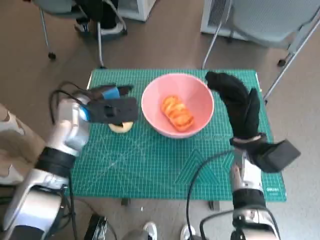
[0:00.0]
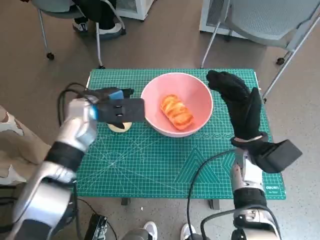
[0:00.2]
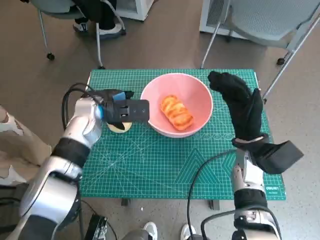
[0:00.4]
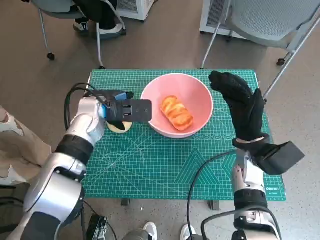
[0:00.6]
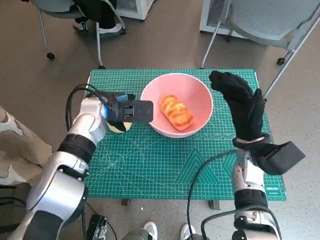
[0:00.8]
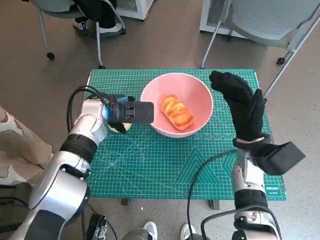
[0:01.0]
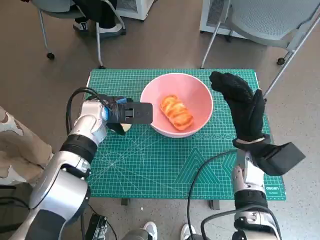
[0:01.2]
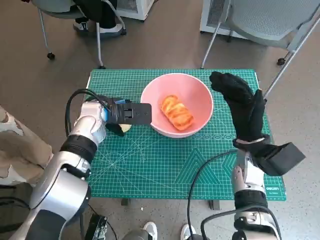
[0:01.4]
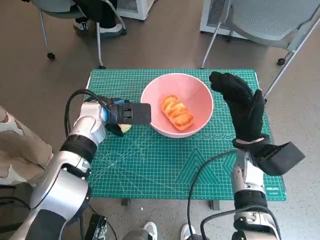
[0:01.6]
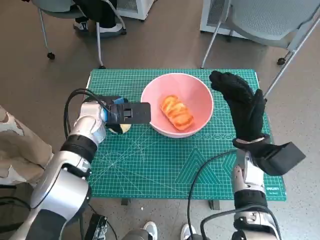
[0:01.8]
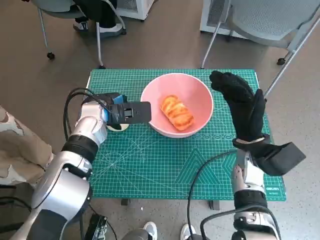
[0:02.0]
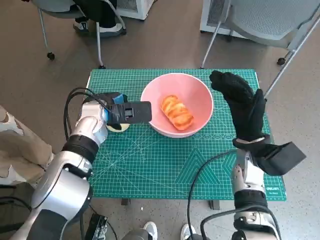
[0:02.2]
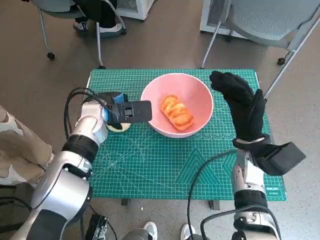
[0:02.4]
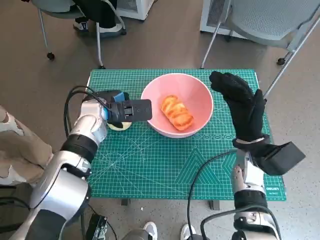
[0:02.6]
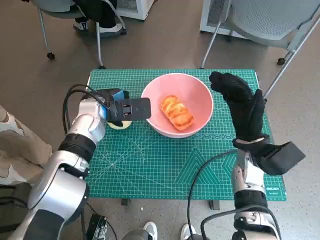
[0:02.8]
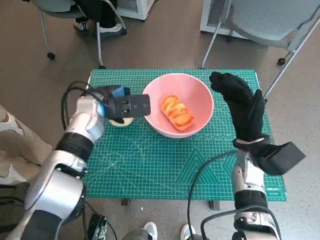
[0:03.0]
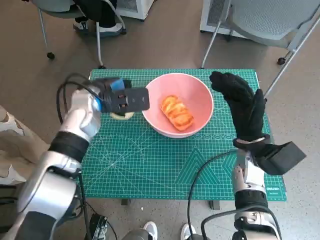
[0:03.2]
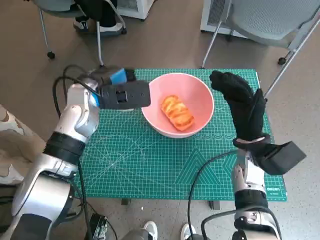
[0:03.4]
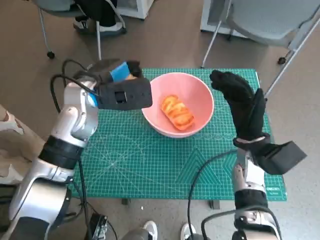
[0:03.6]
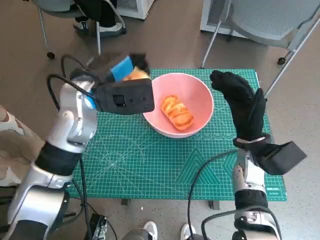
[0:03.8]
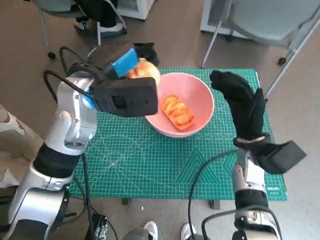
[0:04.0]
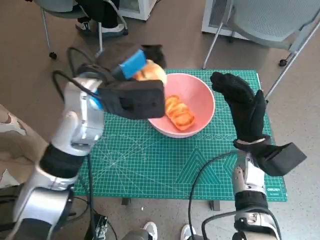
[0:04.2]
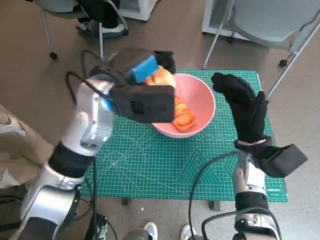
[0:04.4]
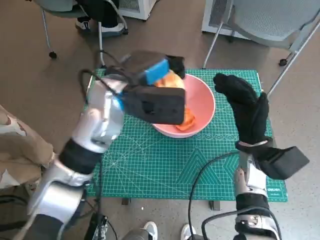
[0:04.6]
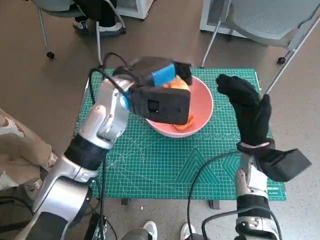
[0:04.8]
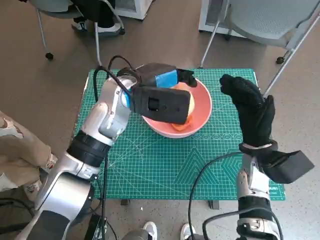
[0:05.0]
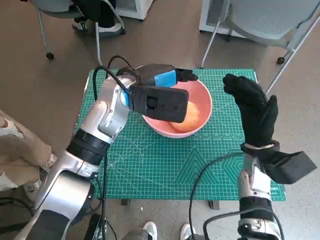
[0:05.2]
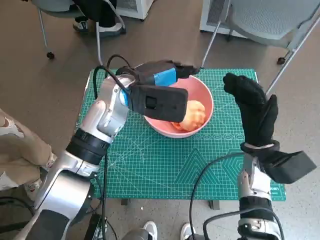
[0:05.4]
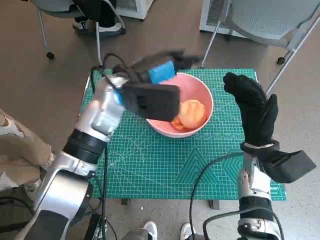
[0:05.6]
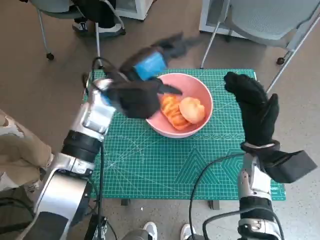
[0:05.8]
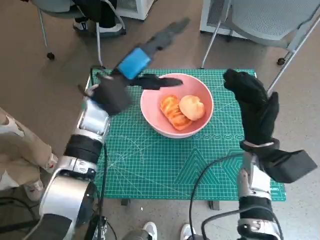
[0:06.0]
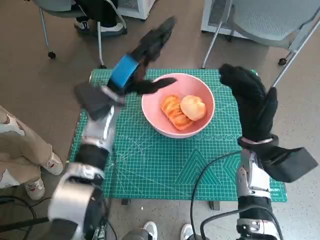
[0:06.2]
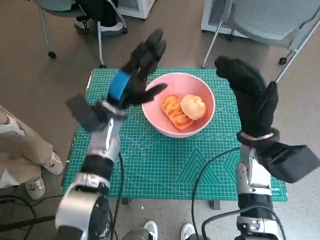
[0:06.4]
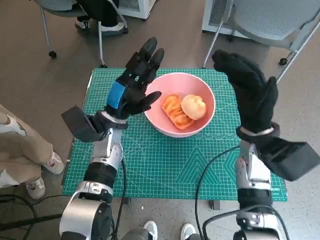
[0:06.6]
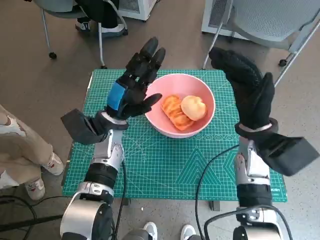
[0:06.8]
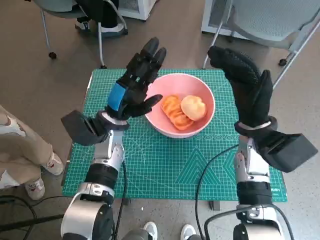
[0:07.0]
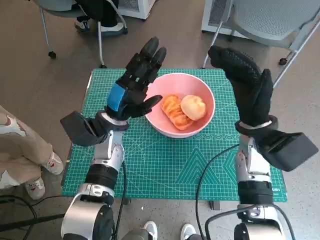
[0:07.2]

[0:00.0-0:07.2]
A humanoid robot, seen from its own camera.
Step, 0:00.0 to 0:02.2: Grasp the round bread with left hand.
Step, 0:02.4 to 0:05.2: Place the round bread in pink bowl with left hand.
0:00.0 to 0:01.4: The left hand changes place by roughly 5 cm.
0:01.4 to 0:02.8: The hands move only a little.
0:02.8 to 0:04.4: The left hand goes roughly 10 cm upward and to the right.
0:05.8 to 0:07.2: The right hand travels upward by roughly 5 cm; the left hand travels downward by some 10 cm.
